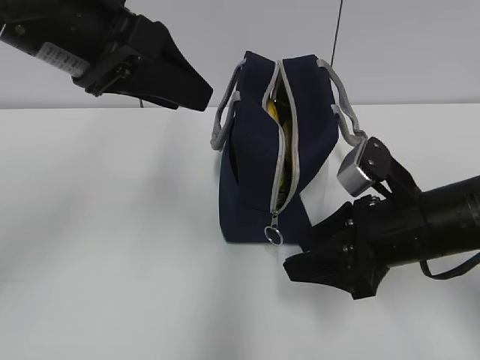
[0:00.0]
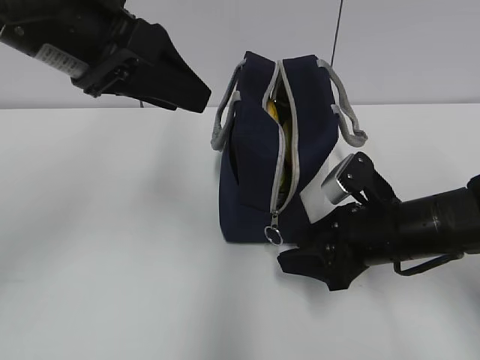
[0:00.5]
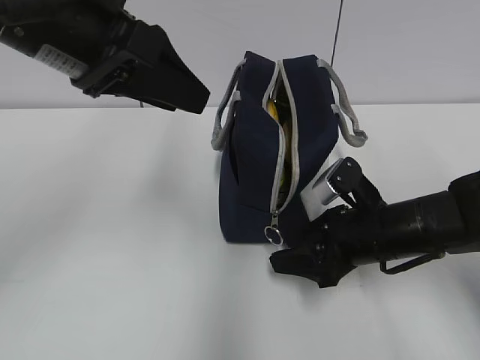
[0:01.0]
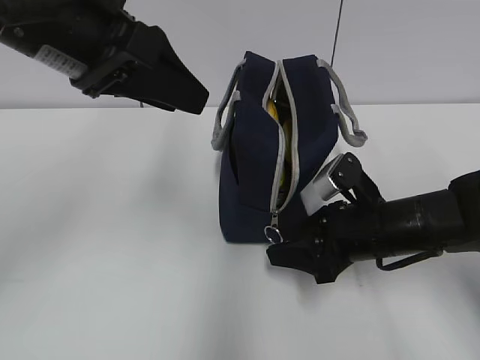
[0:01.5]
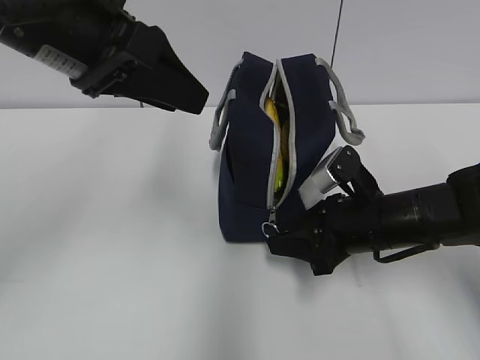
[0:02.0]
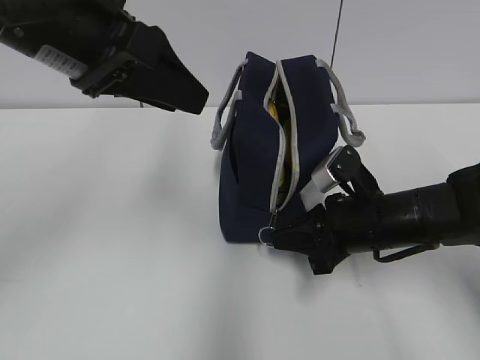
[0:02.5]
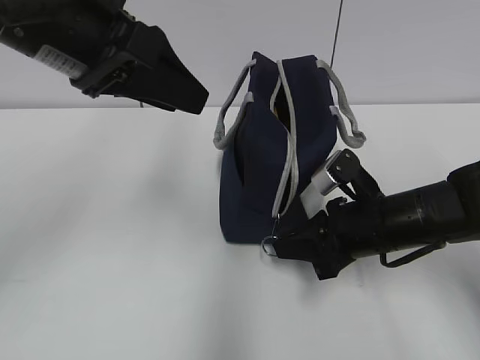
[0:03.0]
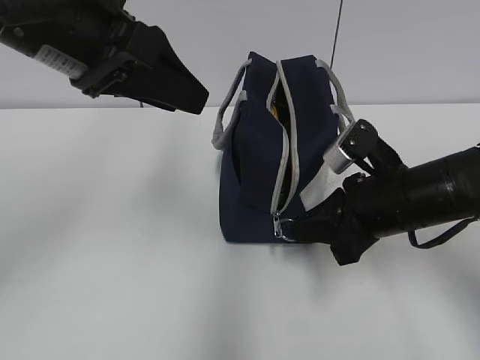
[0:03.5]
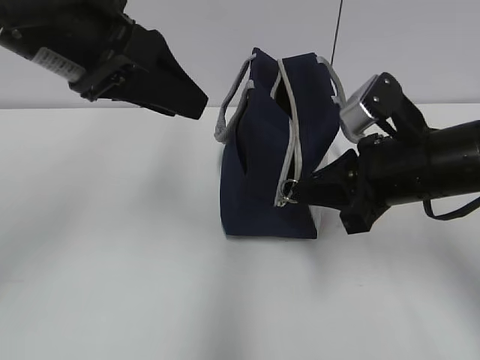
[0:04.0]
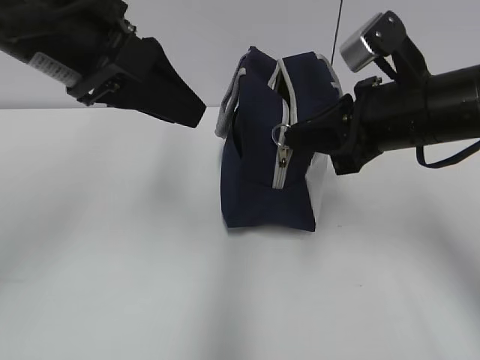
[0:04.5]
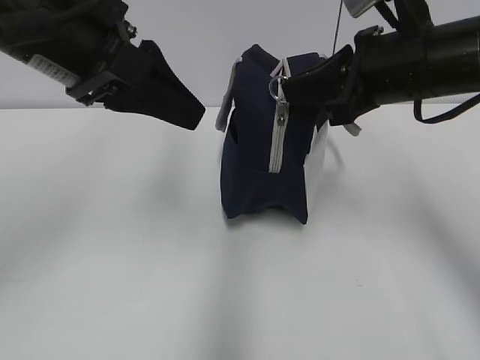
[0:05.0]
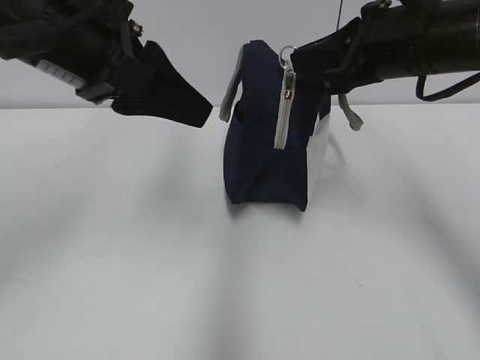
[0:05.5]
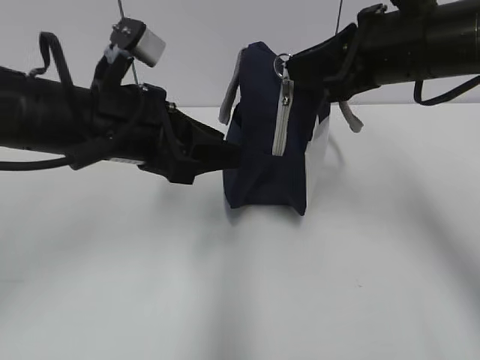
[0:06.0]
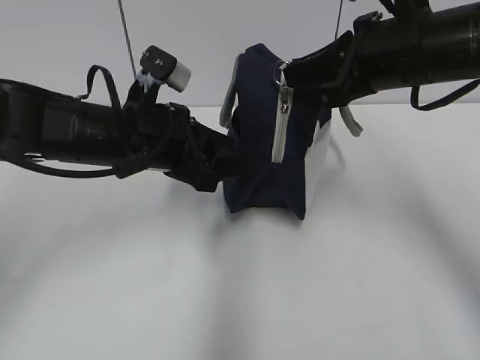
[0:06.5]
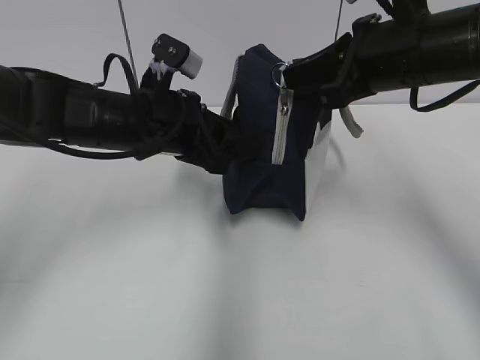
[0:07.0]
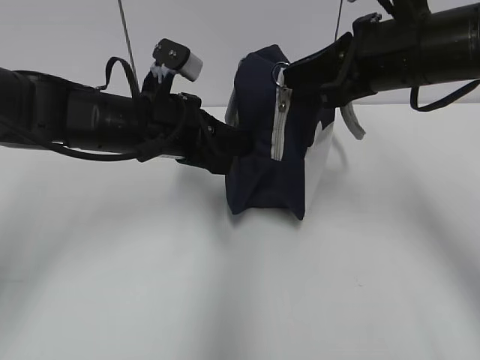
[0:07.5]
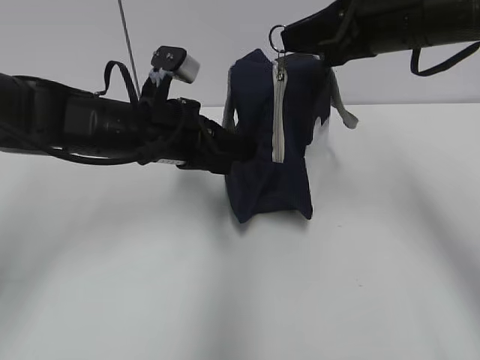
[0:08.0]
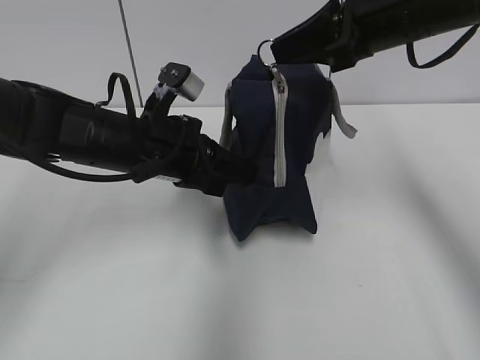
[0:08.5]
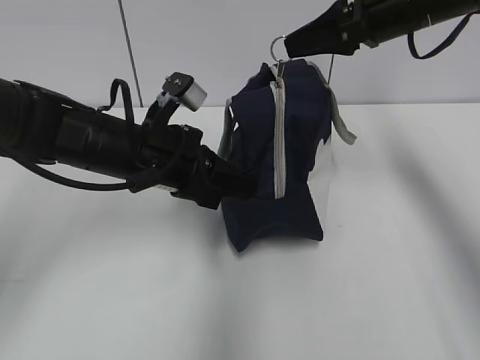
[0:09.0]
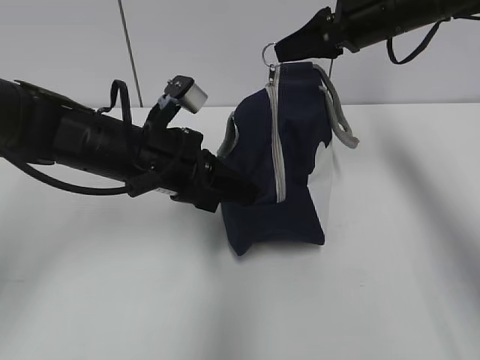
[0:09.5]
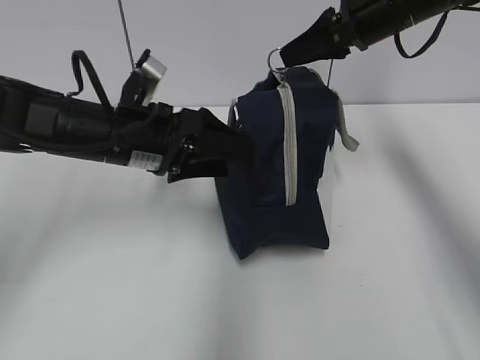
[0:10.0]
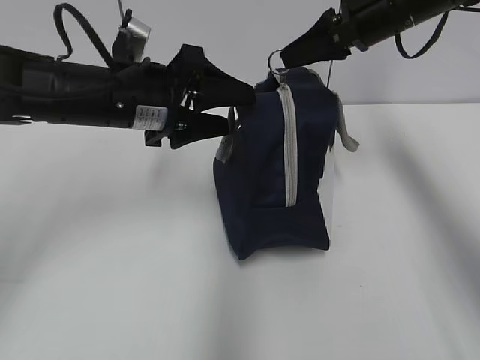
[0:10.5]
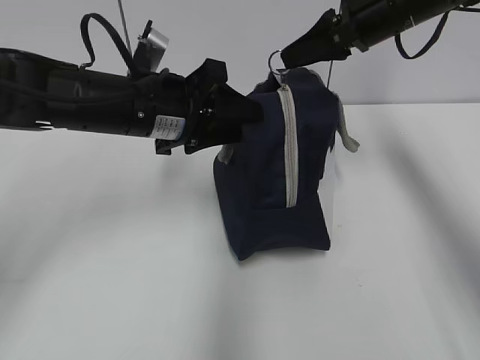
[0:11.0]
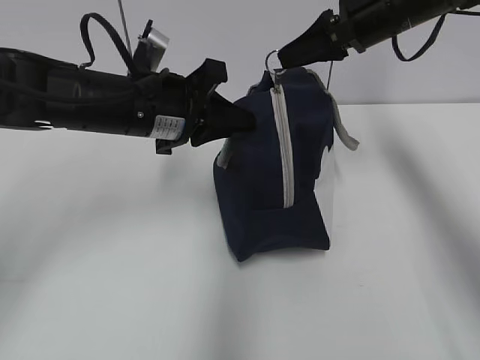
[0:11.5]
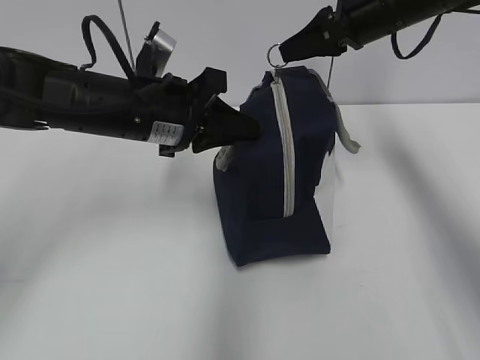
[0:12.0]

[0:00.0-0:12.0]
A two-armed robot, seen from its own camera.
0:00.0 to 0:02.0: The right gripper goes about 5 cm downward.
0:02.0 to 0:04.0: The right gripper goes about 10 cm upward, and closes up.
0:04.0 to 0:06.0: The right gripper is displaced upward and forward by approximately 10 cm; the left gripper is displaced downward by approximately 10 cm.
0:06.0 to 0:08.0: The left gripper shifts approximately 5 cm forward, and closes.
0:08.0 to 0:10.0: The right gripper travels forward by approximately 10 cm, while the left gripper opens its fingers.
0:10.0 to 0:12.0: The left gripper closes its fingers.

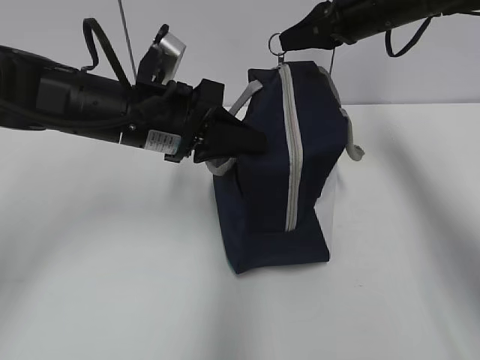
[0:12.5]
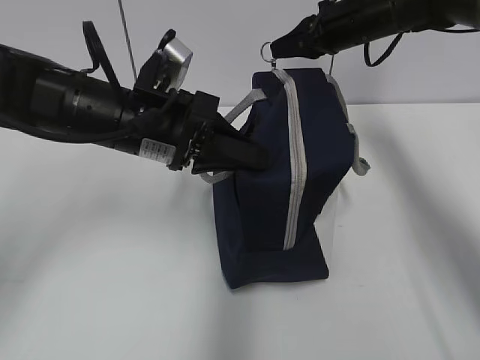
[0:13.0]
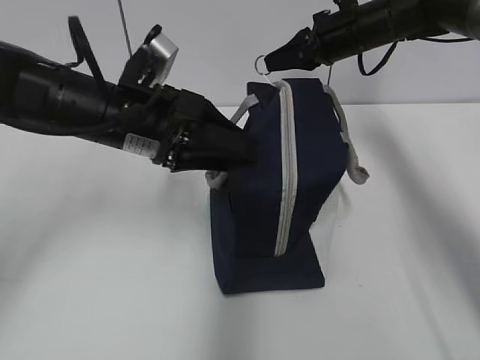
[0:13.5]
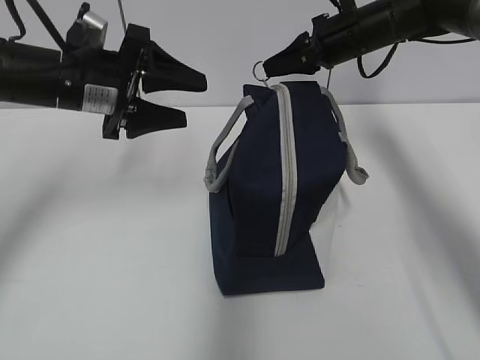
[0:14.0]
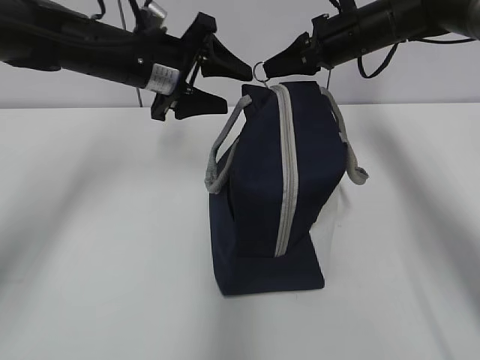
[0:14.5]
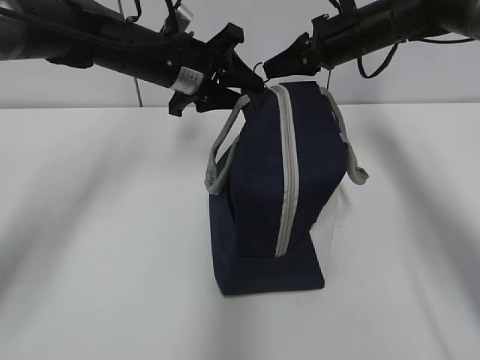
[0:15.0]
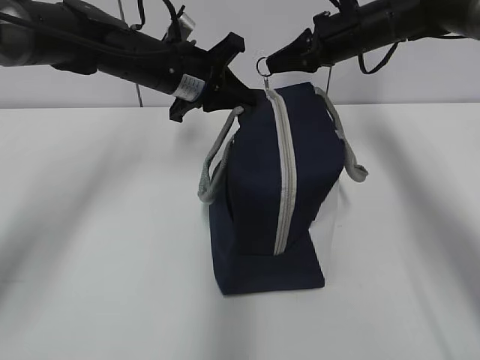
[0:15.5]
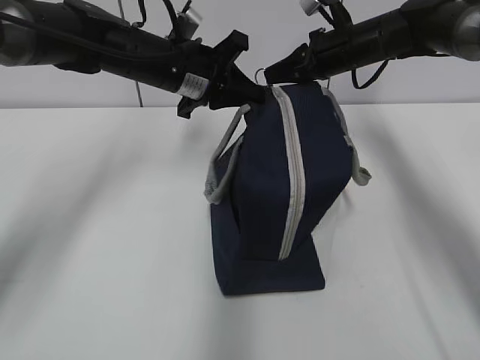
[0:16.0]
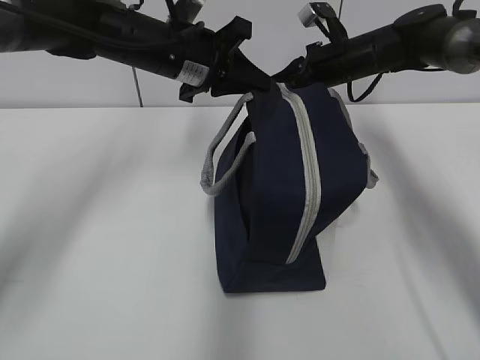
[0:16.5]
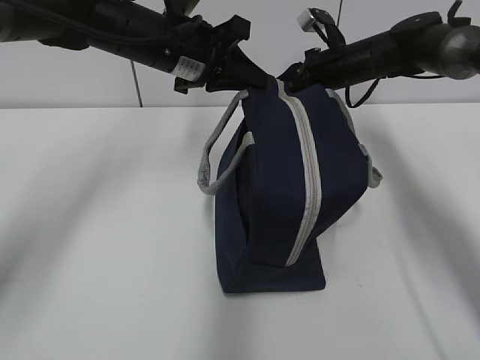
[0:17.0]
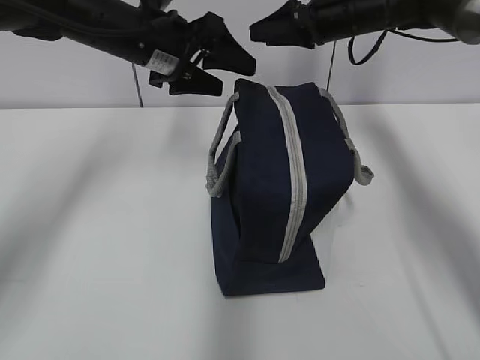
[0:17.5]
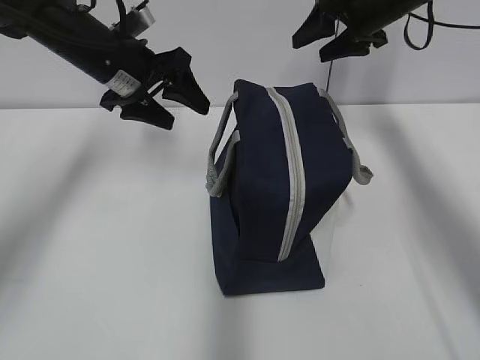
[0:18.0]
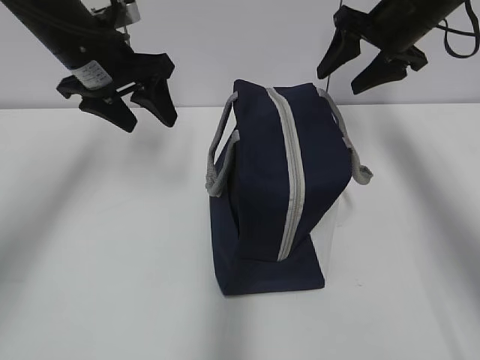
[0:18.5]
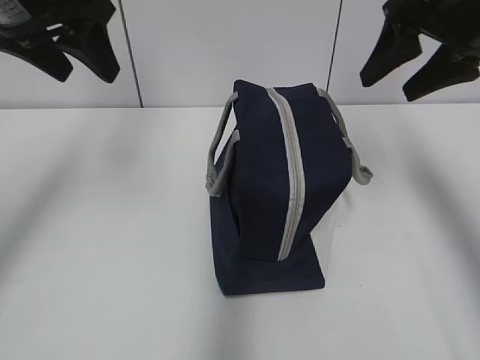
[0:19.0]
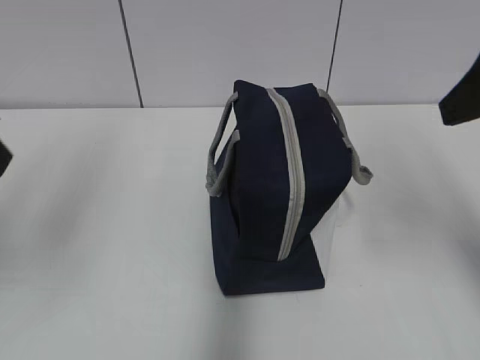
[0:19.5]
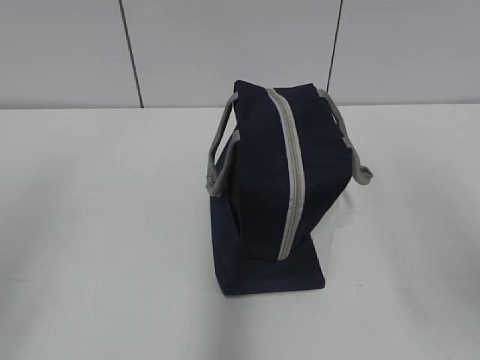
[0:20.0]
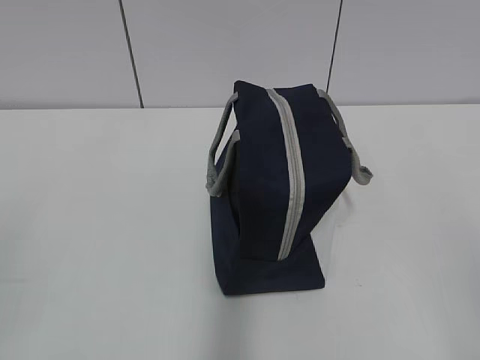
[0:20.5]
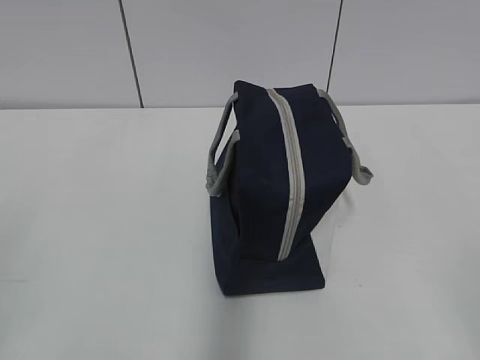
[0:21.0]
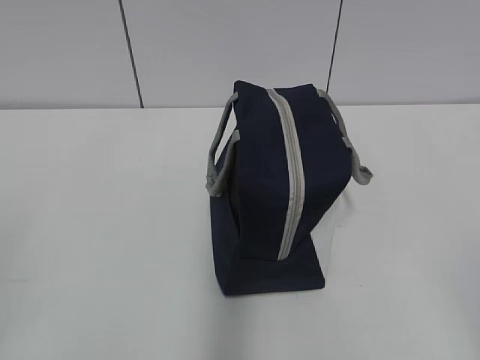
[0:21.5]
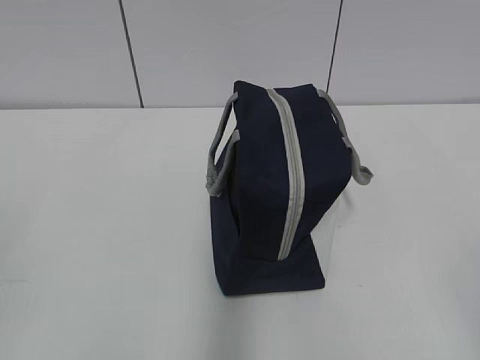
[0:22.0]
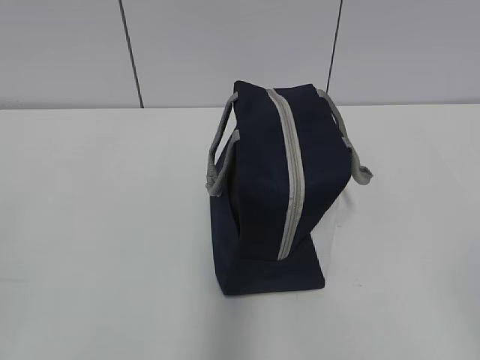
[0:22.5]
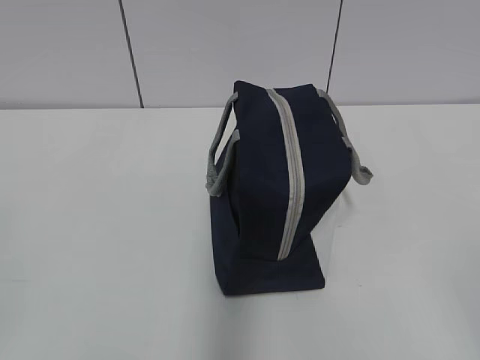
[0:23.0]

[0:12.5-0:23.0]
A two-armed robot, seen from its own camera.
Step, 0:14.0 to 0:17.0: Pull the zipper with your right hand.
0:12.5 to 0:14.5: The right gripper ends up about 5 cm from where it was, while the left gripper heads forward, covering some 10 cm, and opens up.
0:14.5 to 0:16.5: The right gripper ends up roughly 5 cm from where it was; the left gripper closes its fingers.
0:16.5 to 0:19.0: The left gripper is displaced to the left, upward and backward by about 15 cm, and opens up. The right gripper heads backward and upward, covering roughly 20 cm, and opens.
0:19.0 to 0:21.0: The grippers both shift backward by some 35 cm.

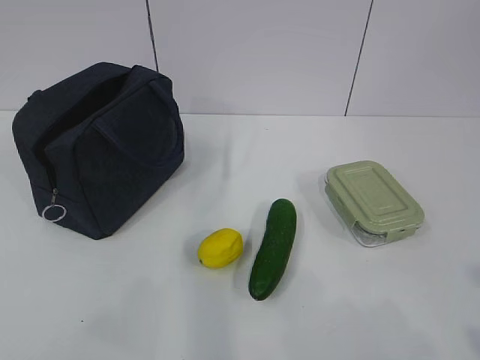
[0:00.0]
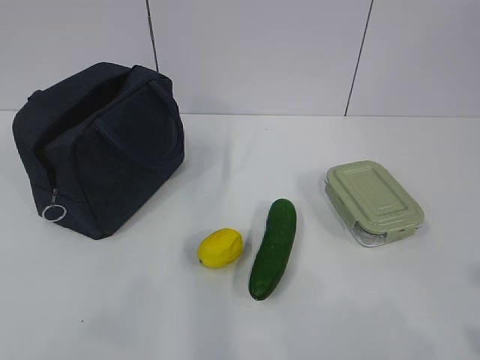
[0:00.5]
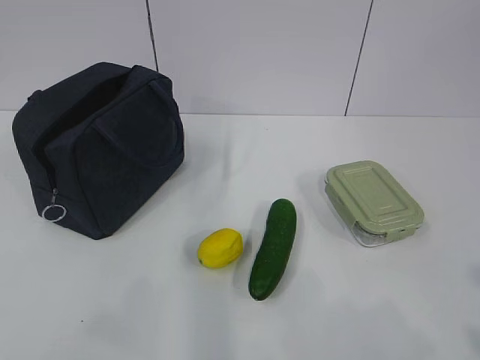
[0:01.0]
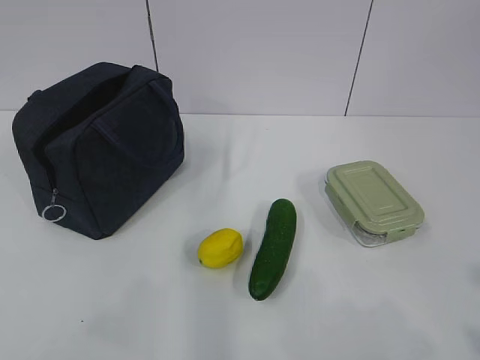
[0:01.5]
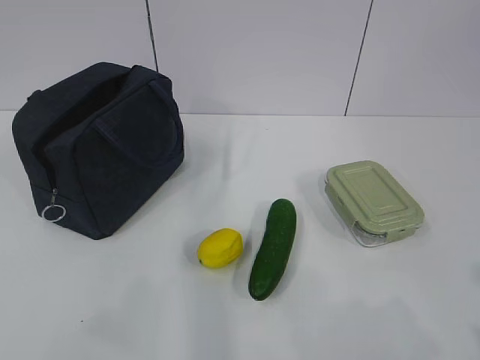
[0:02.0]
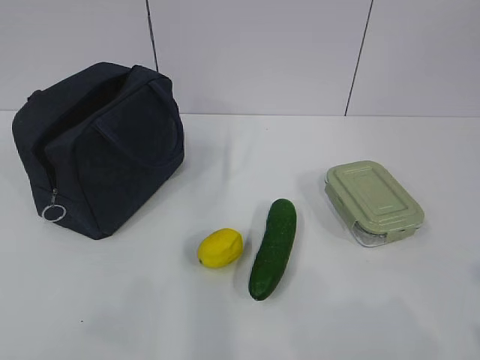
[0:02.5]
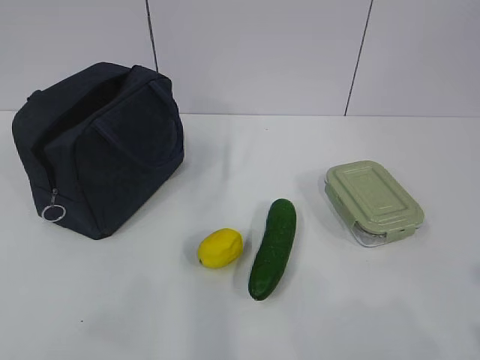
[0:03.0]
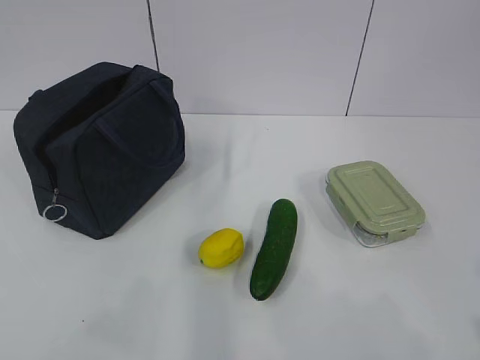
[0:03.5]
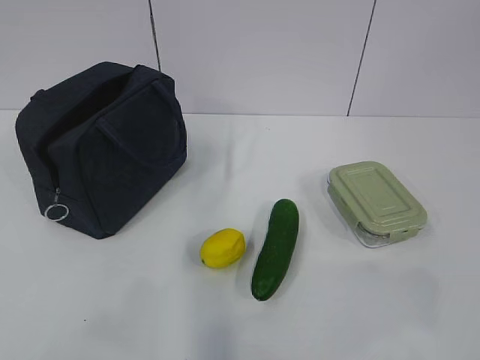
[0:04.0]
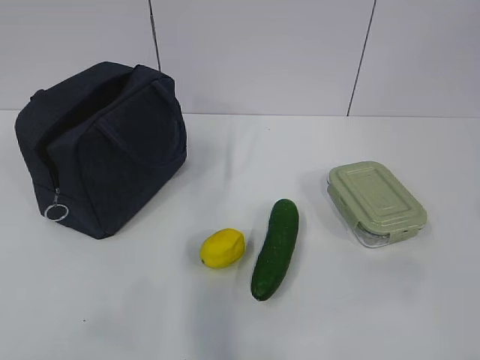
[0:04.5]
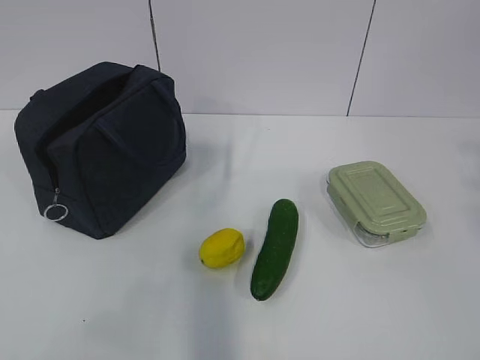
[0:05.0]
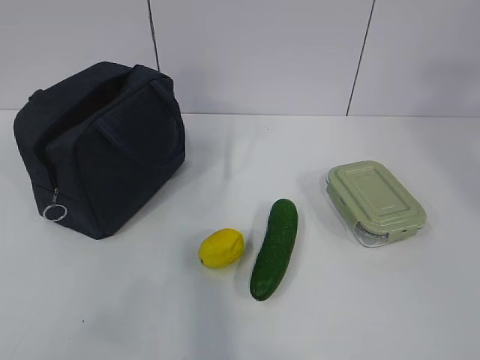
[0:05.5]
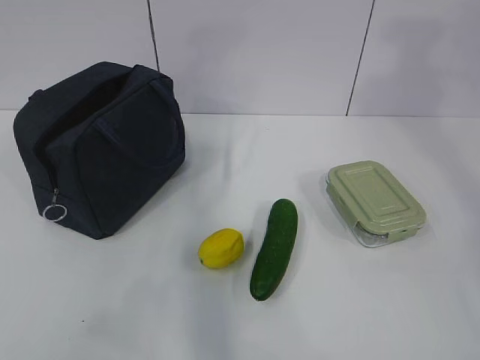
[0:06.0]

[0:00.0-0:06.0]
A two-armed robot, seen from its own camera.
0:02.0 to 0:04.0: The right gripper changes place by some 5 cm.
0:04.0 to 0:06.0: The right gripper shifts roughly 30 cm forward and upward.
